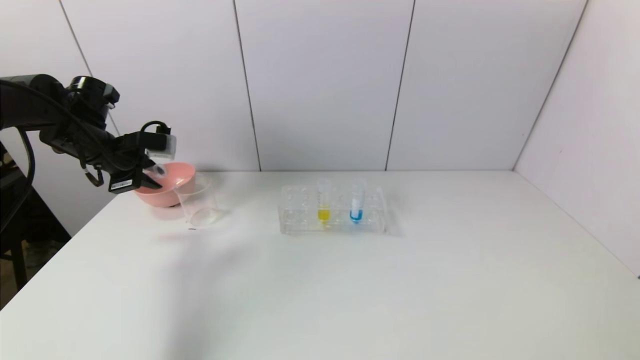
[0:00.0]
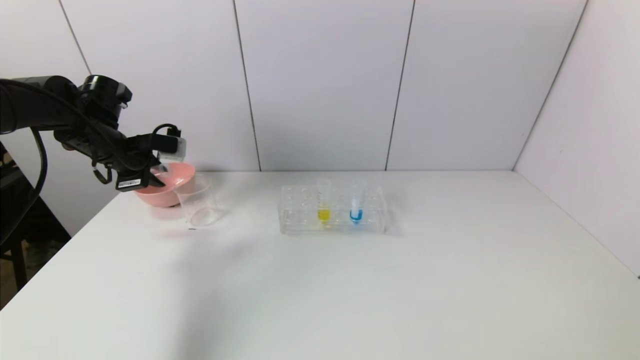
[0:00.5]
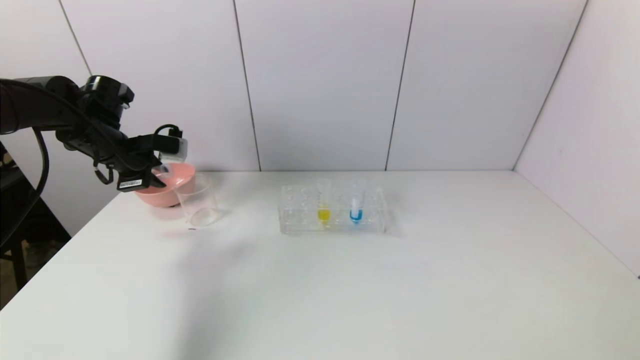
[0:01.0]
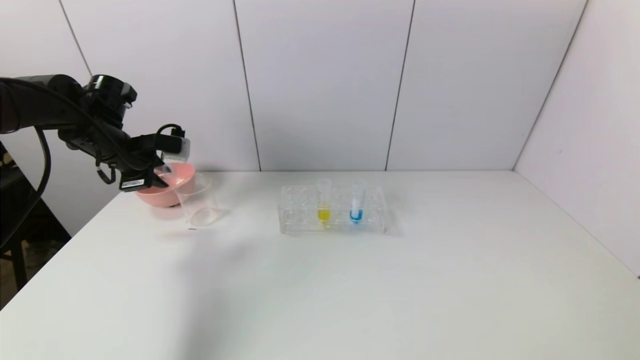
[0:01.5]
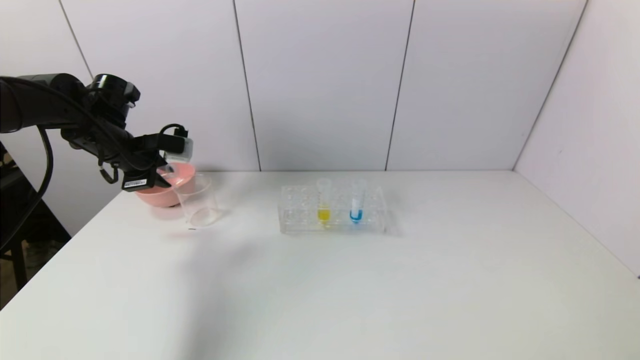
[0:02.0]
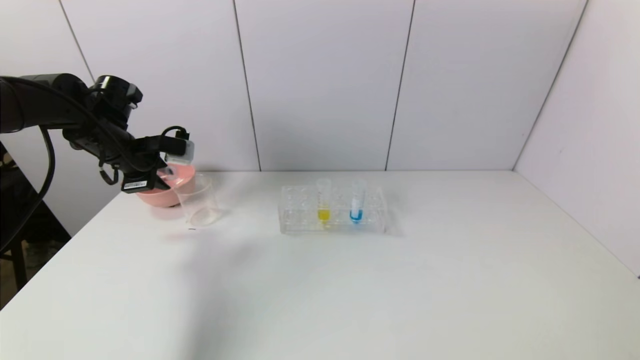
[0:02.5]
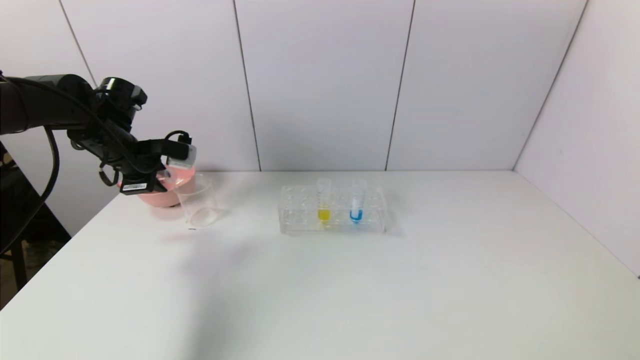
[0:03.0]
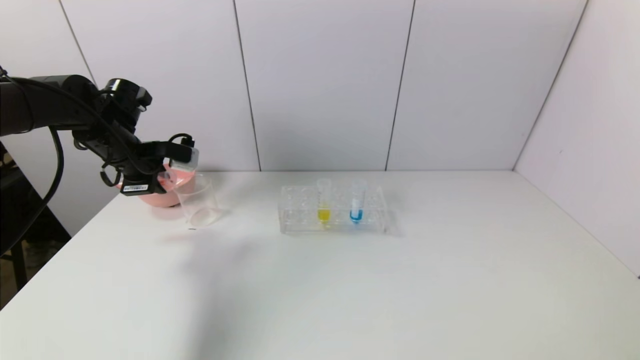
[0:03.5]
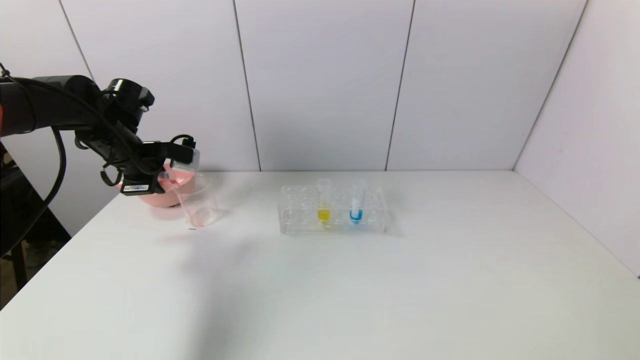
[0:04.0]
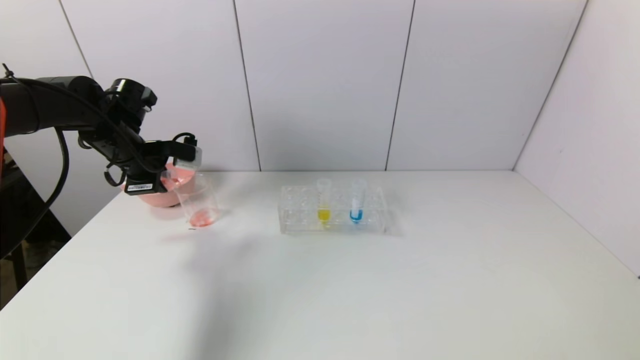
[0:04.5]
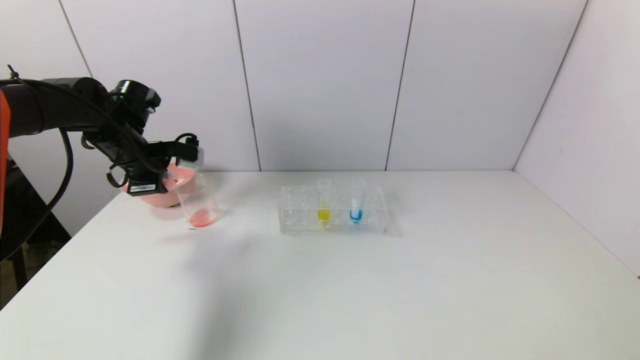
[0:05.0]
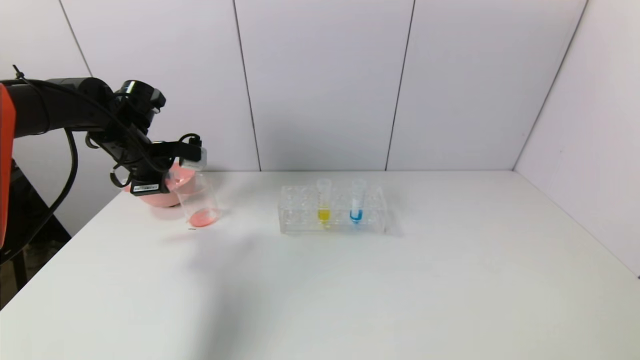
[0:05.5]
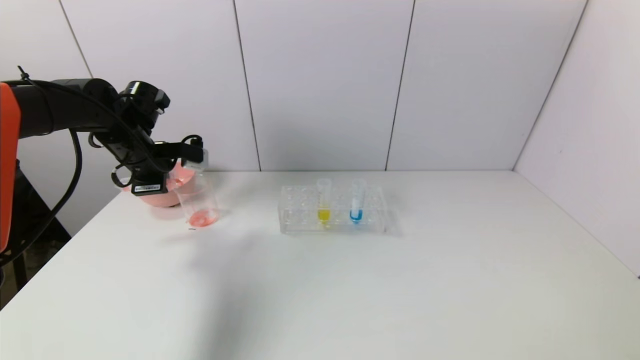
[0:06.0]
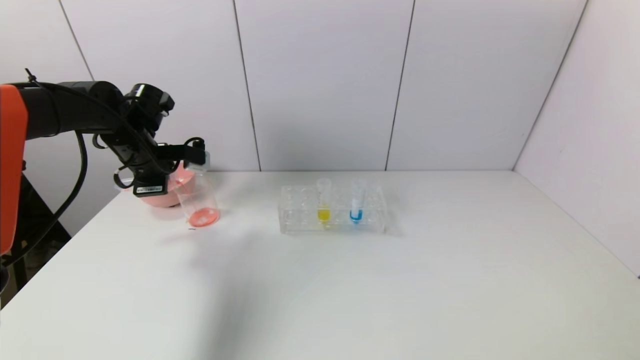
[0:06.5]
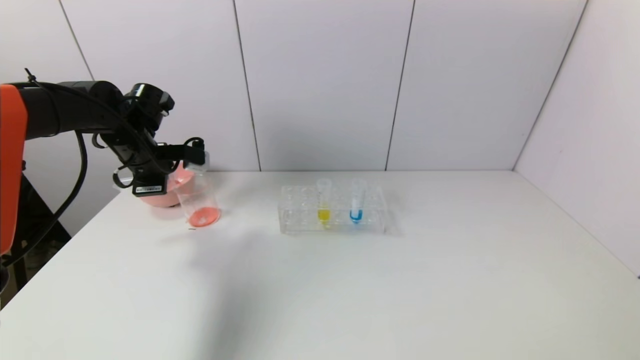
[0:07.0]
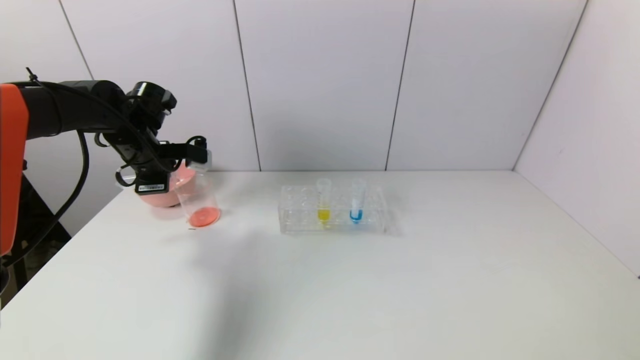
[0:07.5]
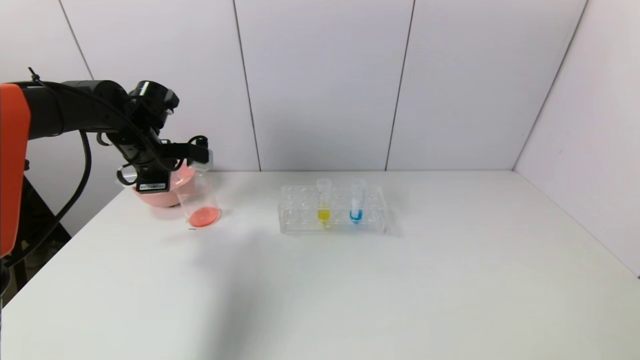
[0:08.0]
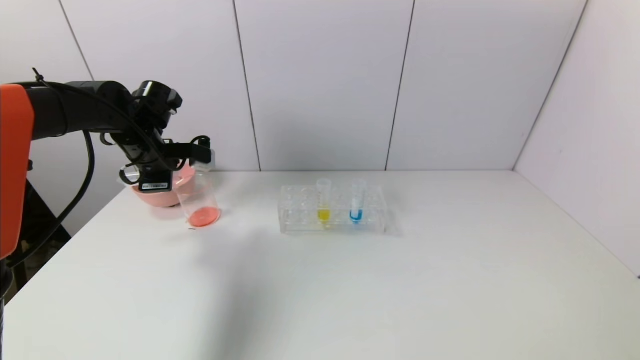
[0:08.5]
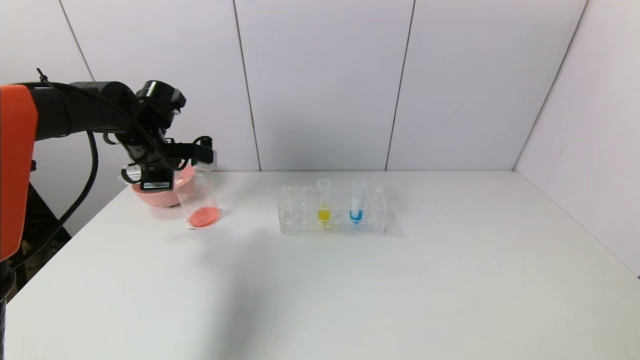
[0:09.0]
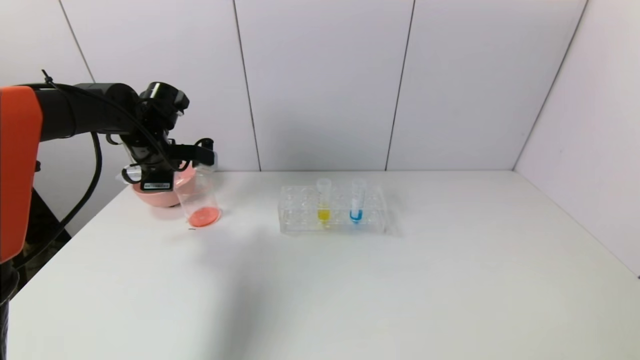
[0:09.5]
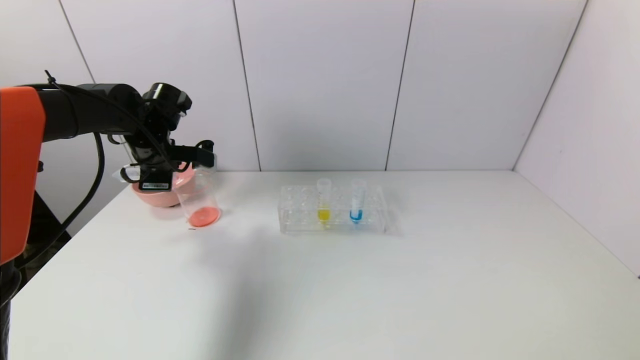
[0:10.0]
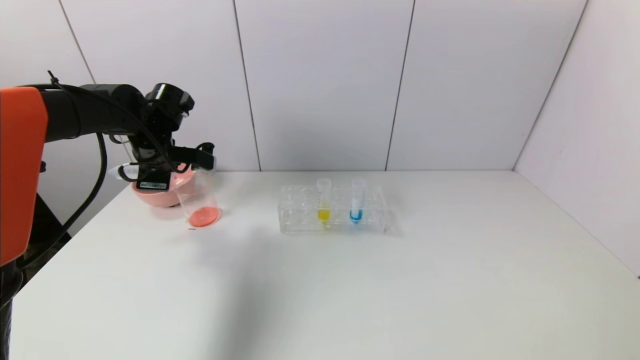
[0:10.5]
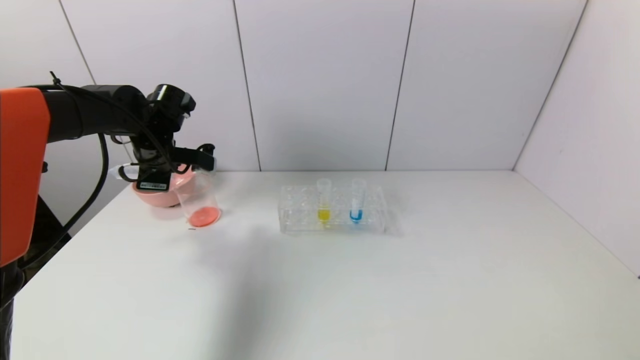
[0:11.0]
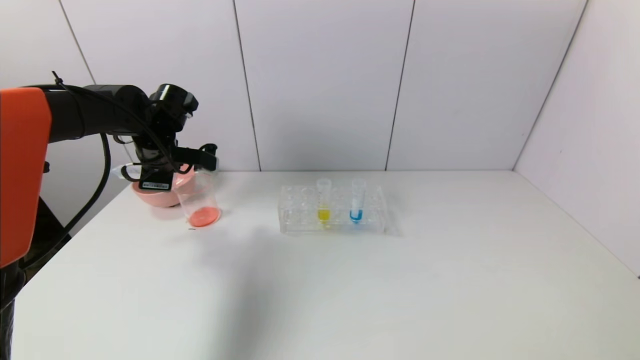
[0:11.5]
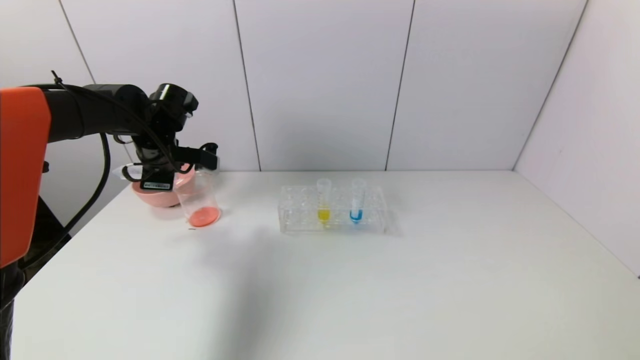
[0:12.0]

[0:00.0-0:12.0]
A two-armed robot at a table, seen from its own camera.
Task of the whole recording: pick up the test tube with yellow pigment and the test tube with red pigment by grippers and pour them into the beaker.
Step, 0:00.0 to 0:08.5: Pour the red reagent into the graduated cylinder with the left gripper.
0:00.0 to 0:06.0: The grippers move only a little.
0:06.0 to 0:08.0: Neither gripper changes place.
0:08.0 to 0:10.0: The grippers stay close to where they were, moving slightly.
0:10.0 to 0:12.0: The two grippers keep their place.

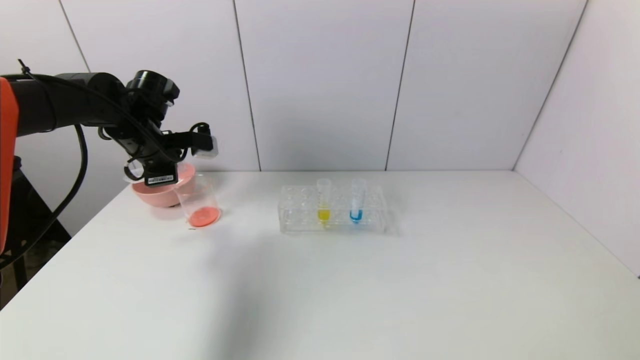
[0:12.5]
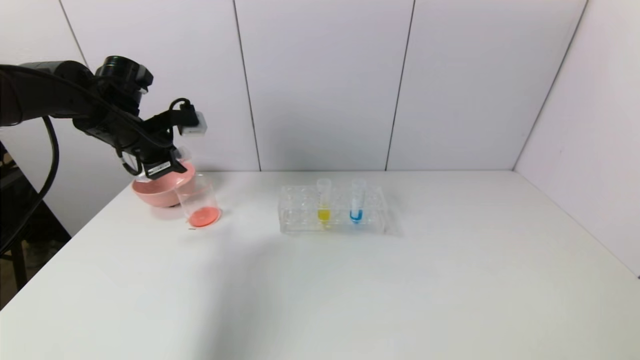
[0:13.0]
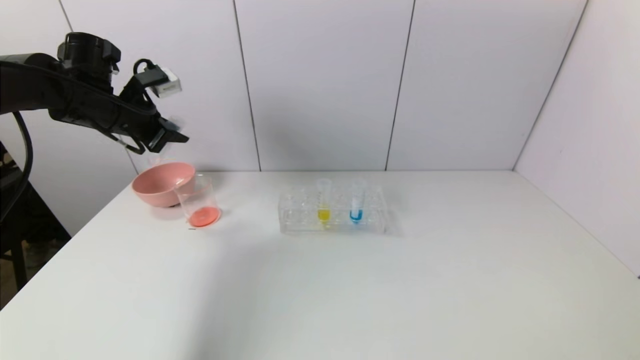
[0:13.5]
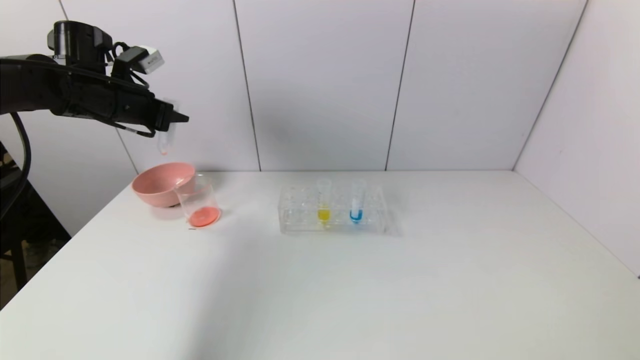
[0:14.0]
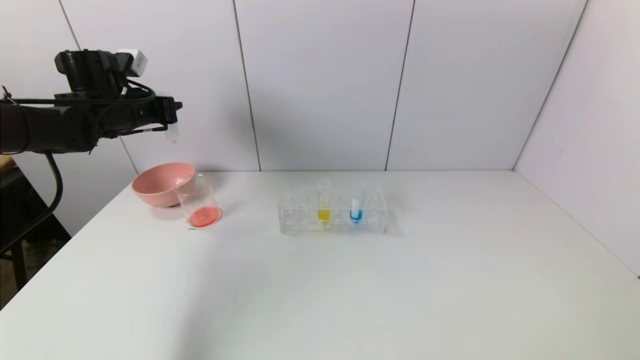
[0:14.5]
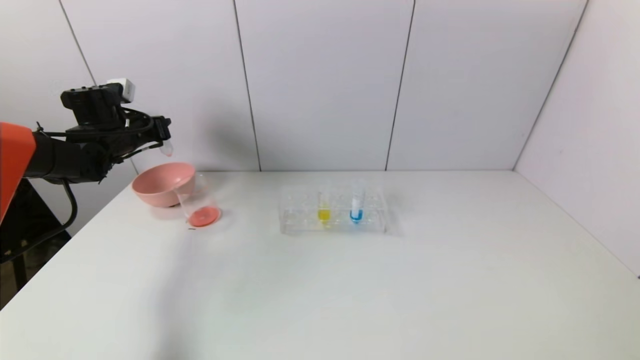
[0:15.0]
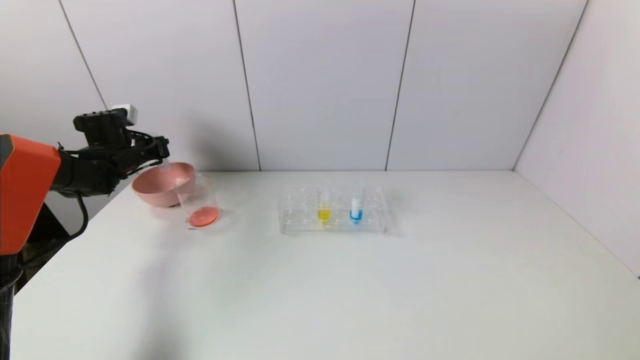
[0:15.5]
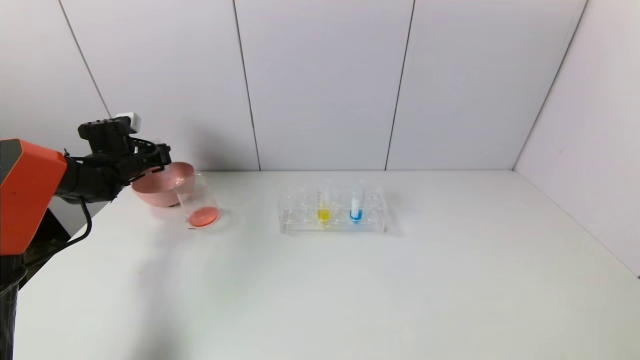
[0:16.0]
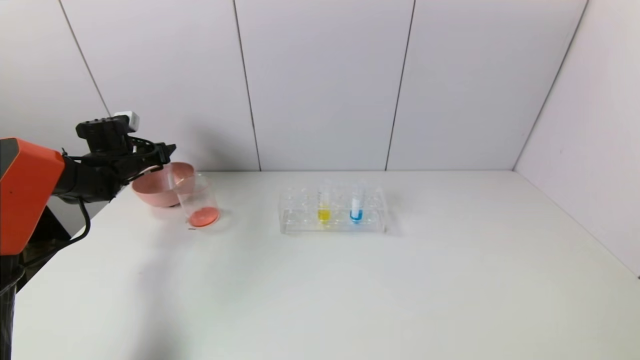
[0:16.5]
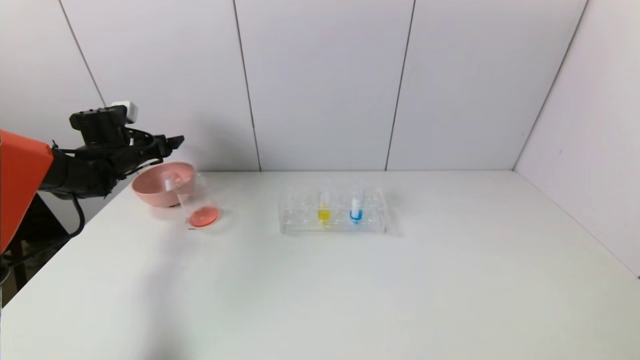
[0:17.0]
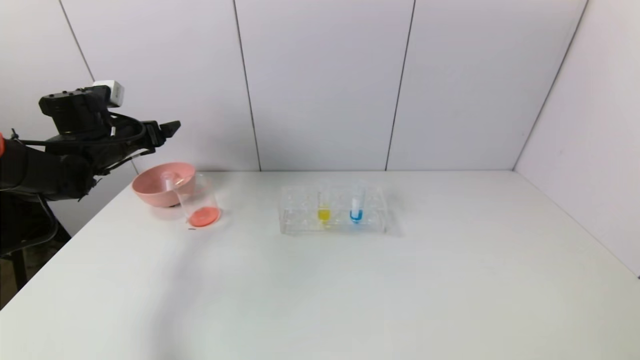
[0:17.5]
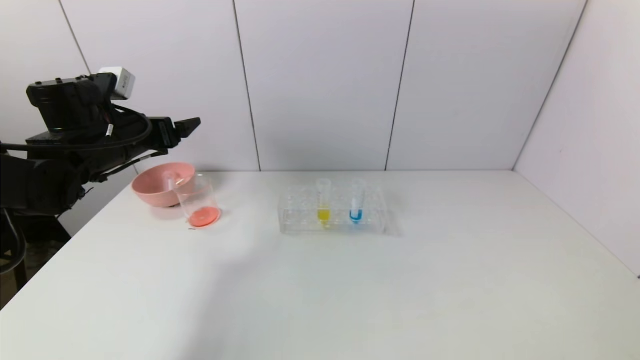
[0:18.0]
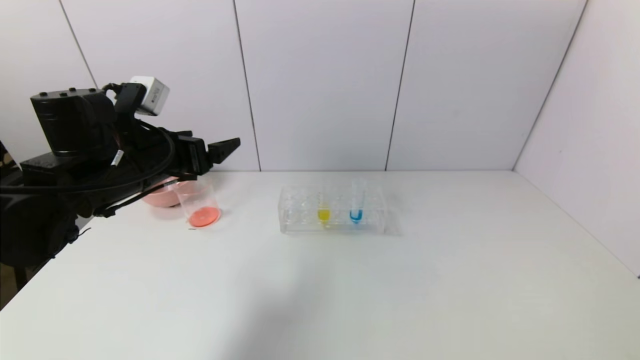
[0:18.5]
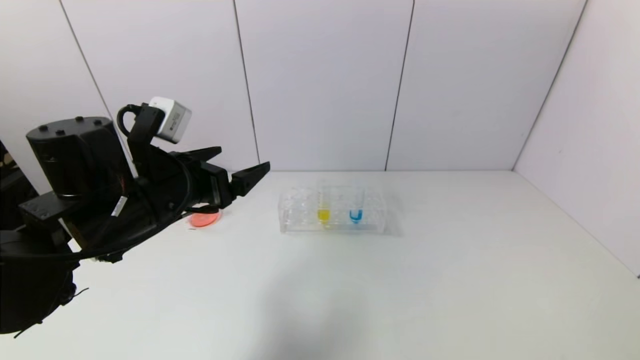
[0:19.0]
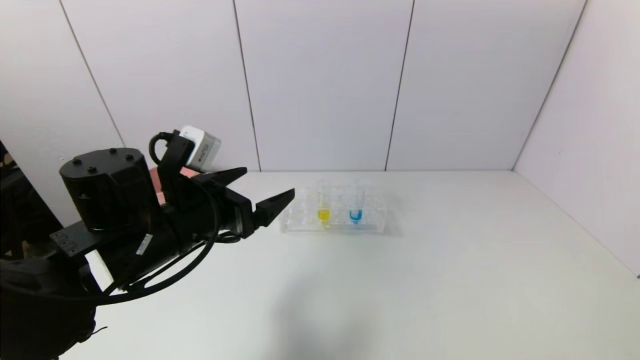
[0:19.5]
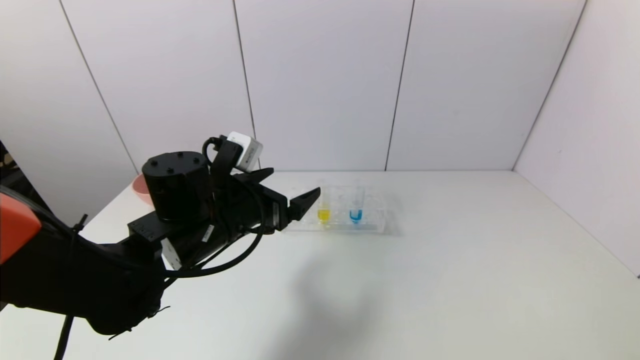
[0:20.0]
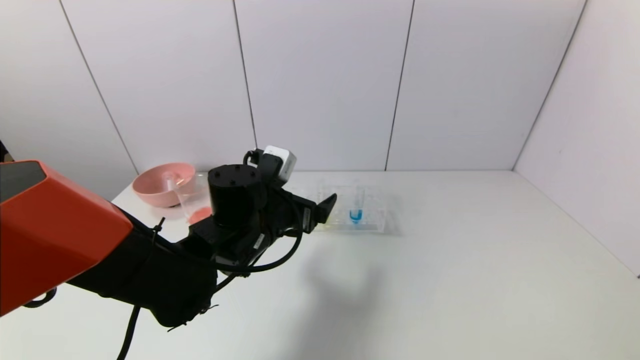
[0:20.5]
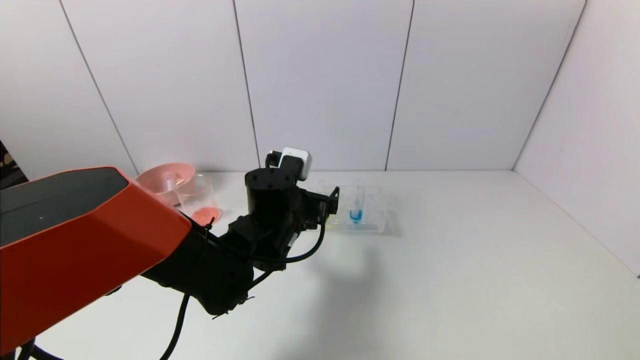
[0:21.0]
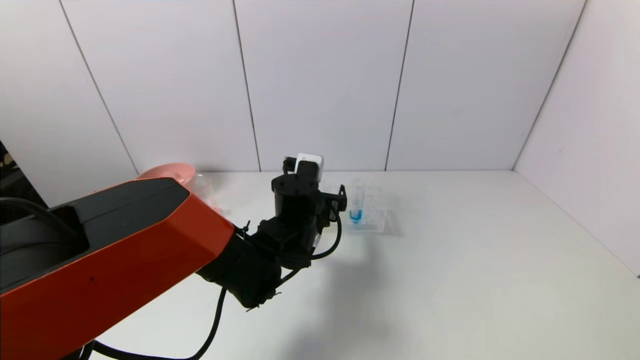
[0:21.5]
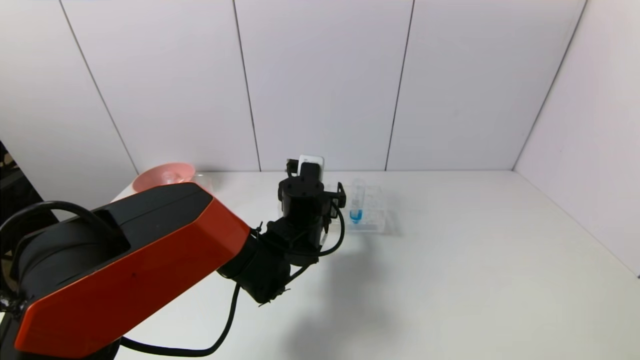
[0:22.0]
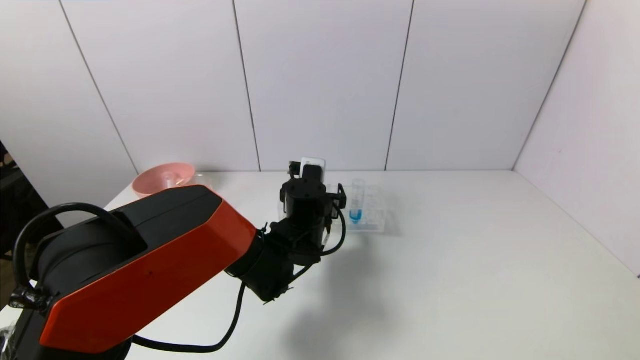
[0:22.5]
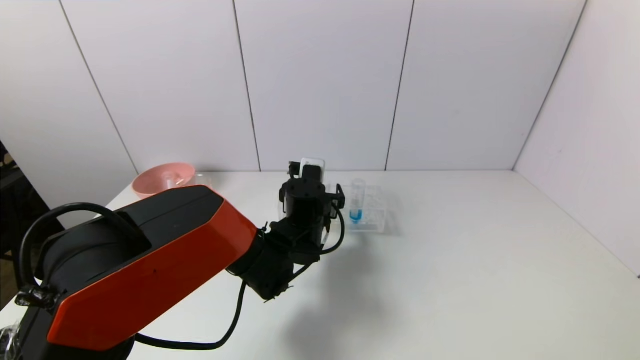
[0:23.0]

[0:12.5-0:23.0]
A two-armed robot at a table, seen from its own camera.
Task of the whole recording: pick up the test tube with yellow pigment and the test tube with red pigment by grippers and pour them into the beaker.
Step, 0:12.5 to 0:16.5: Place the test tube into the pink bowl with the left gripper.
0:12.5 to 0:14.5: The left gripper travels to the left by some 5 cm.
0:14.5 to 0:16.5: The left gripper moves downward and to the left, some 15 cm, and opens.
0:16.5 to 0:19.0: The left gripper travels backward and to the right by about 30 cm, and opens.
0:19.0 to 0:21.0: The left gripper shifts approximately 15 cm to the right, downward and forward.
0:21.0 to 0:23.0: The left gripper shifts by some 5 cm.
